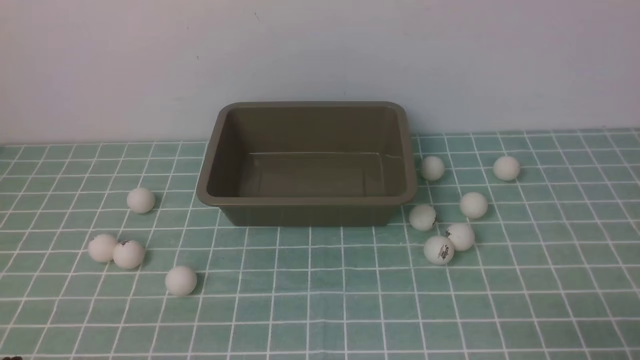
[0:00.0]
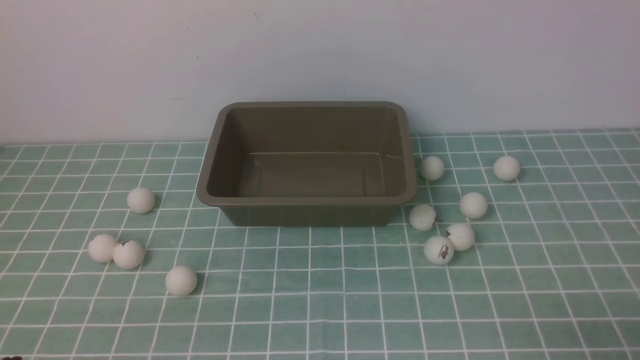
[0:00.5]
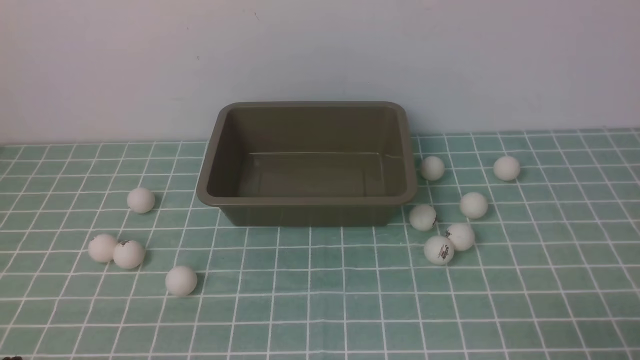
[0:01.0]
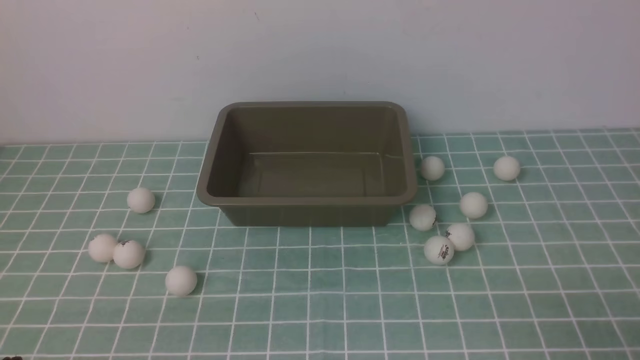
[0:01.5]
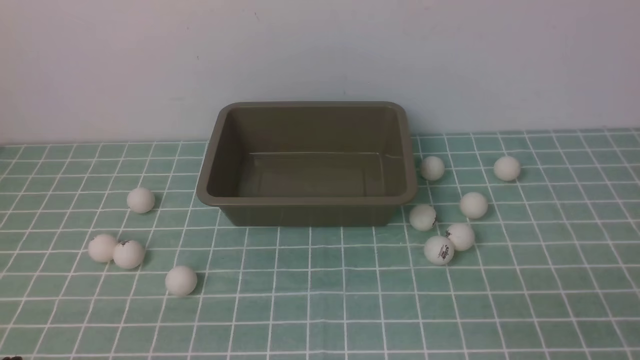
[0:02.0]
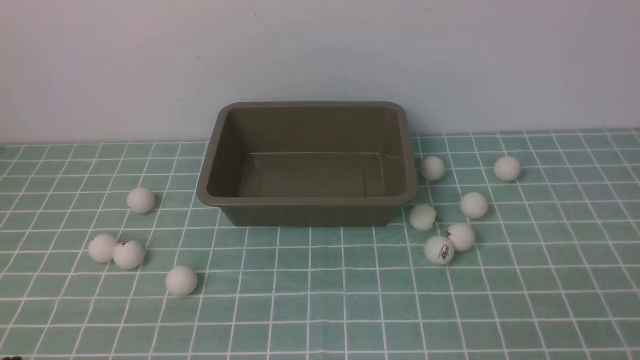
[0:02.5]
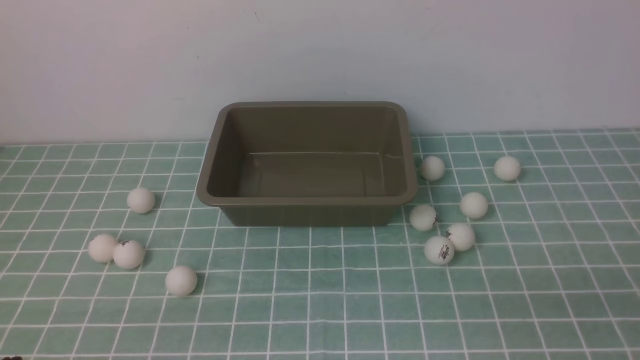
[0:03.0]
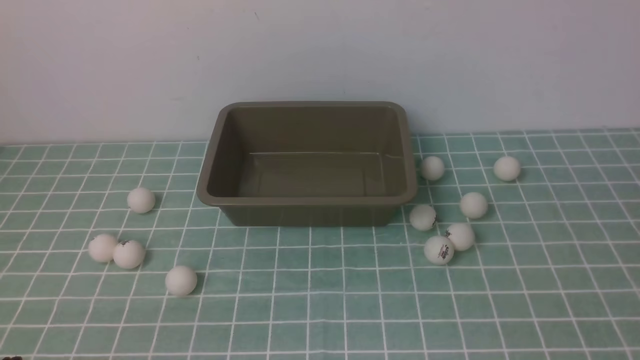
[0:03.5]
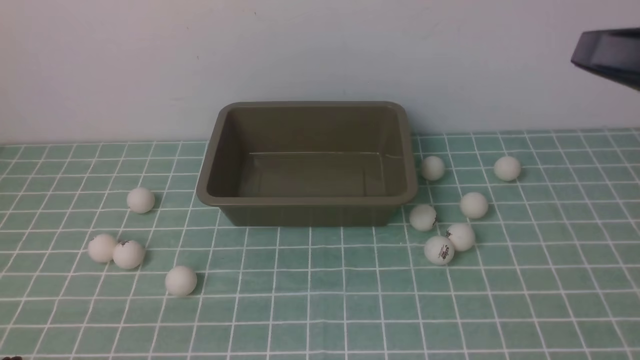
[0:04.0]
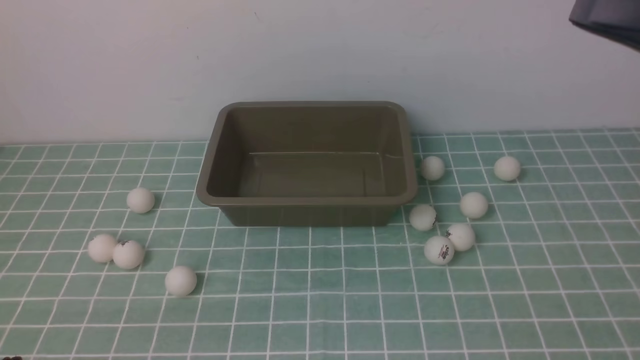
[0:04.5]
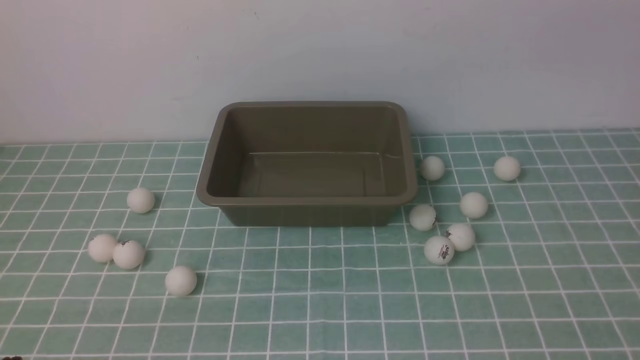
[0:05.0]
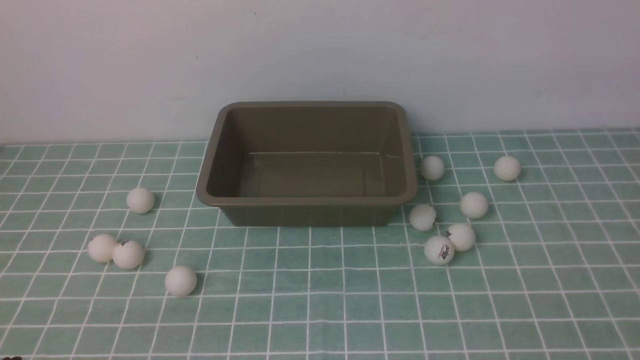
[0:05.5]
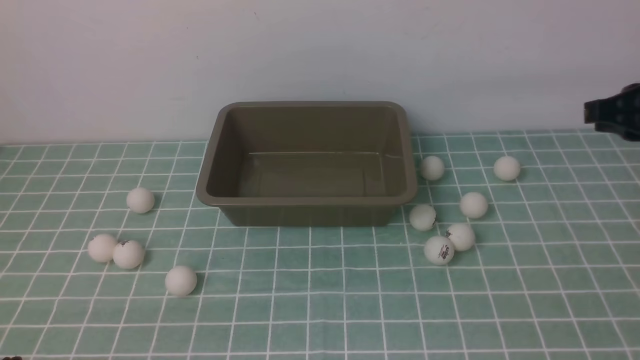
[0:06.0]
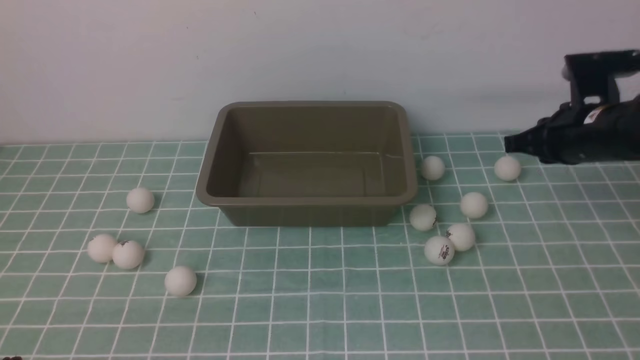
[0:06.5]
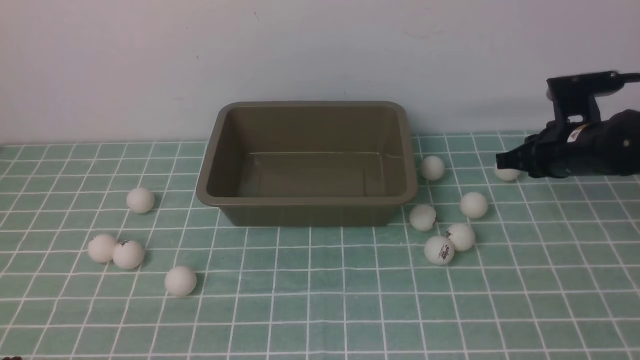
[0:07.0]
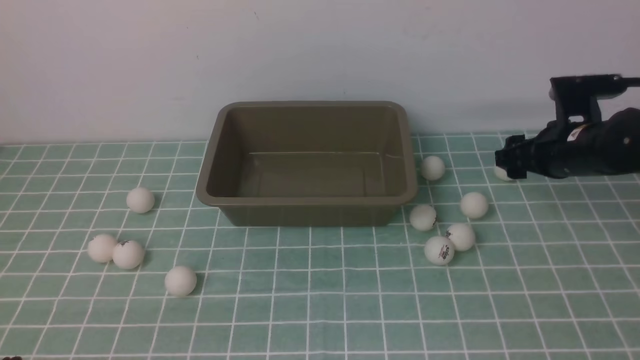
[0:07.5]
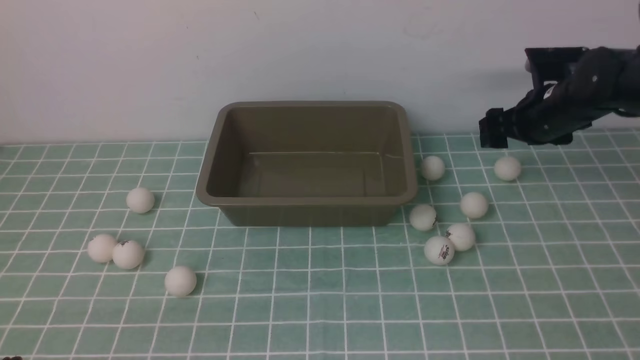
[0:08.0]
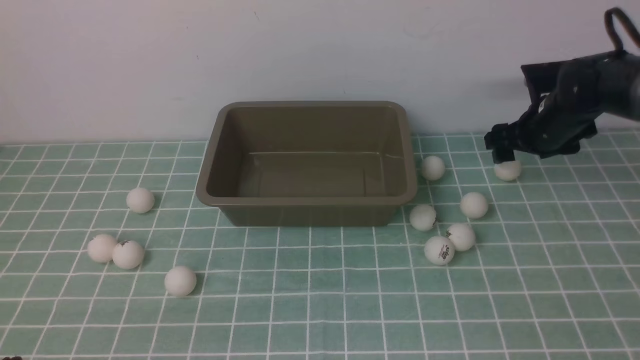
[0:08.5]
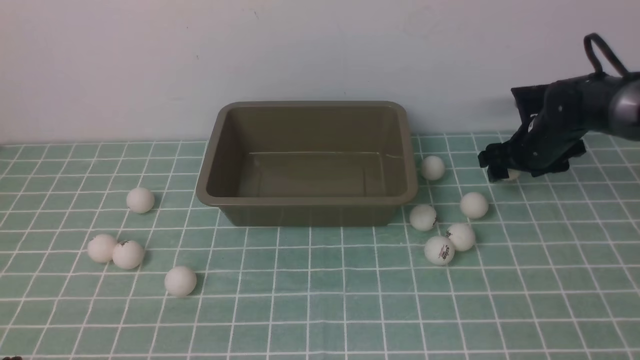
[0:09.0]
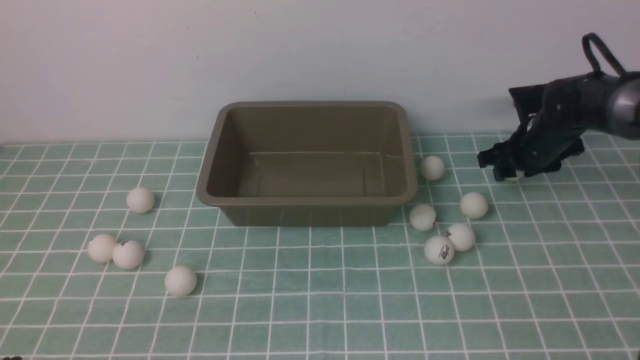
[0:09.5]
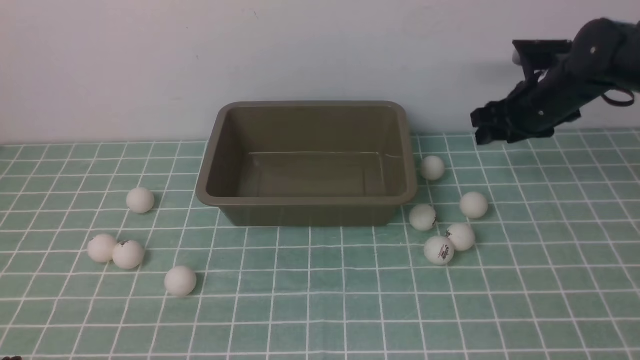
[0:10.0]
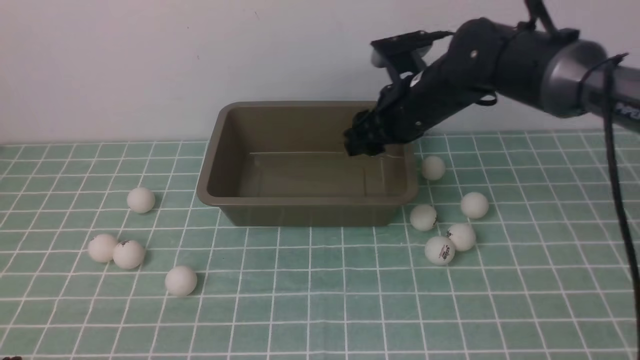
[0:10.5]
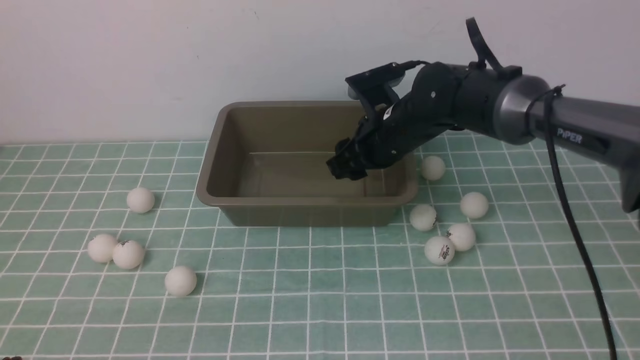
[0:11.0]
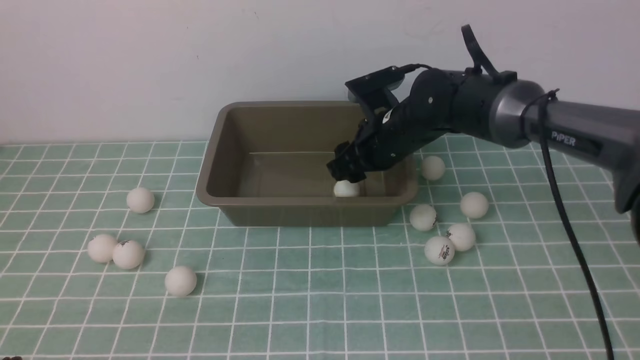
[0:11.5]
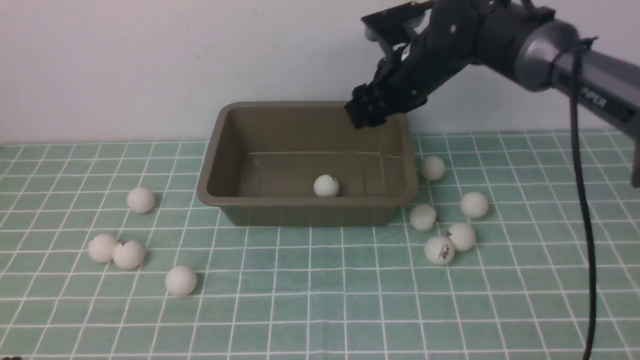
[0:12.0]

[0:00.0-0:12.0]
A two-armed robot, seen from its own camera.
Step, 0:00.0 to 0:09.5: use the right arm to clamp the table tennis ball closest to it.
Step, 0:10.0 to 0:11.5: use the right arm to put the table tennis ball into the box.
0:02.0 to 0:04.0: The right gripper shifts some 25 cm upward and forward.
0:04.0 to 0:06.0: The right gripper shifts about 10 cm forward and downward.
0:06.0 to 0:08.0: The right gripper travels forward and downward by approximately 20 cm, and opens its fingers.
0:08.0 to 0:10.0: The right gripper moves some 5 cm.
0:10.0 to 0:12.0: The right gripper travels to the left and back again, roughly 15 cm each way.

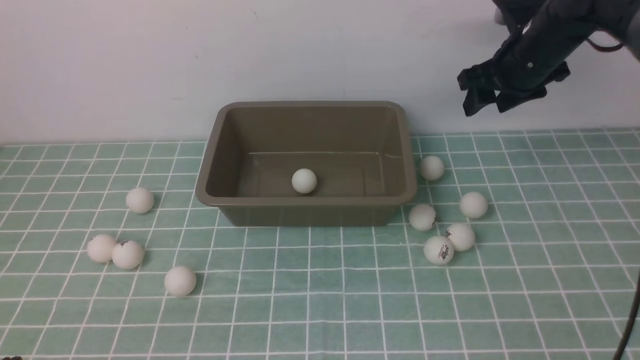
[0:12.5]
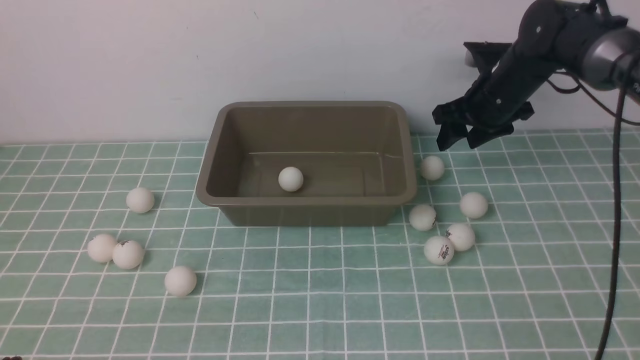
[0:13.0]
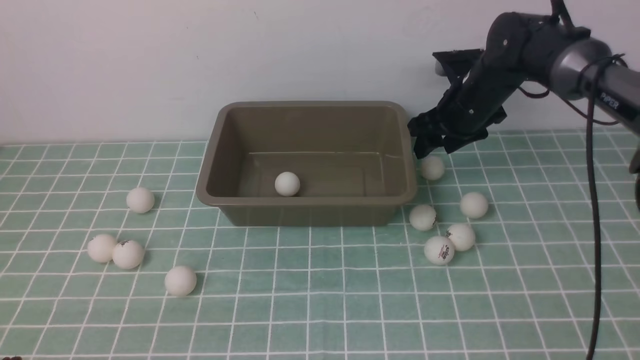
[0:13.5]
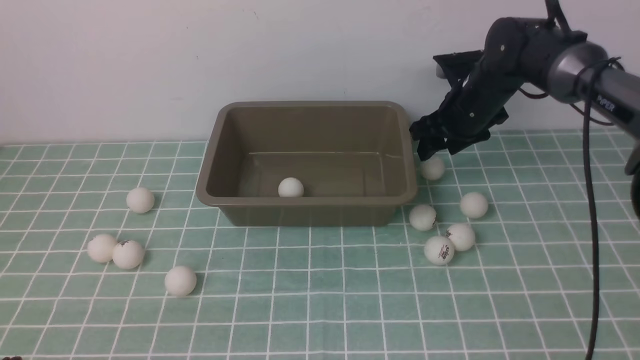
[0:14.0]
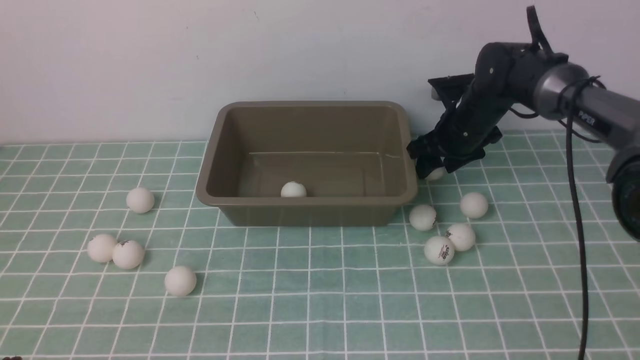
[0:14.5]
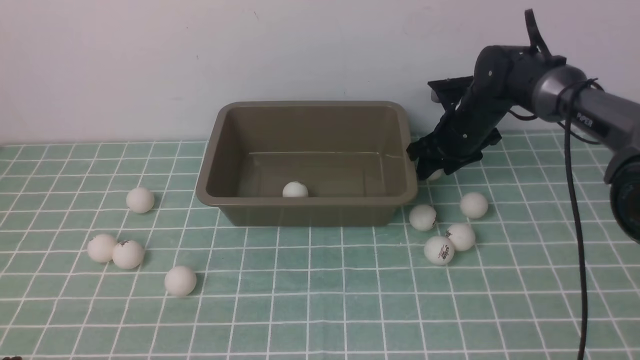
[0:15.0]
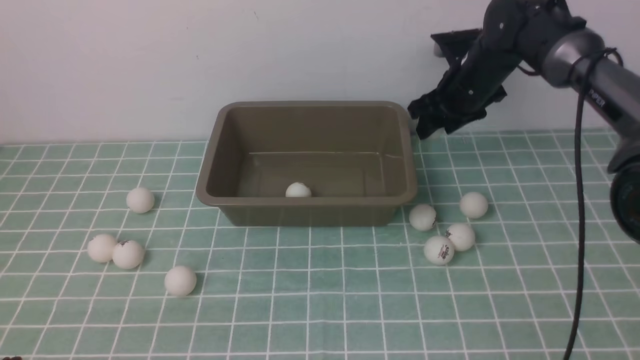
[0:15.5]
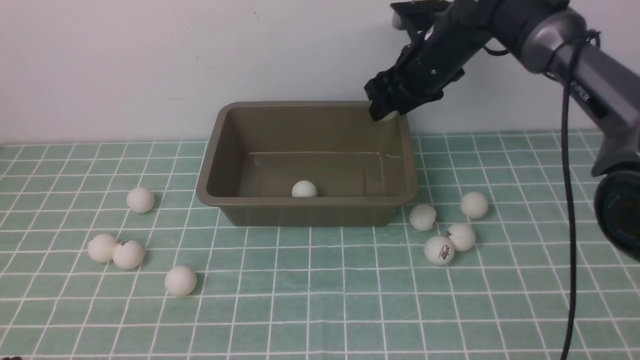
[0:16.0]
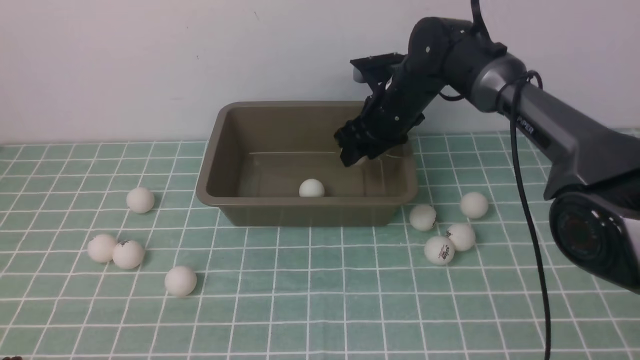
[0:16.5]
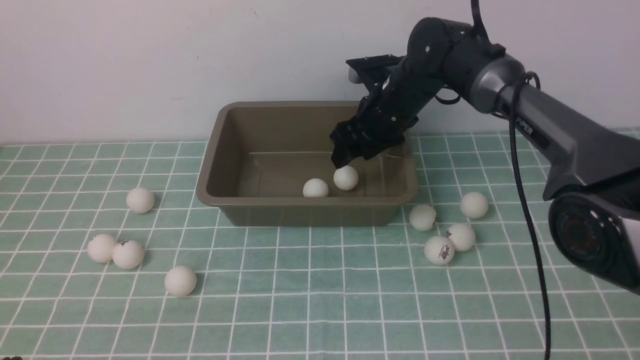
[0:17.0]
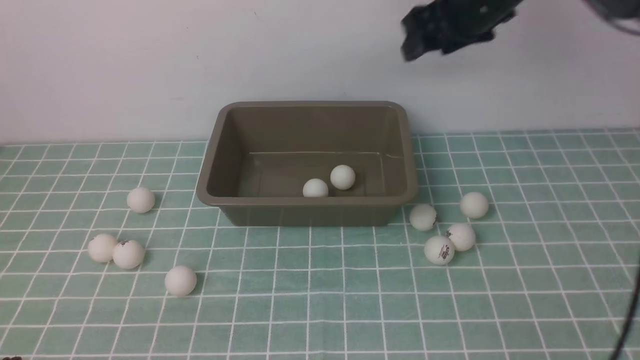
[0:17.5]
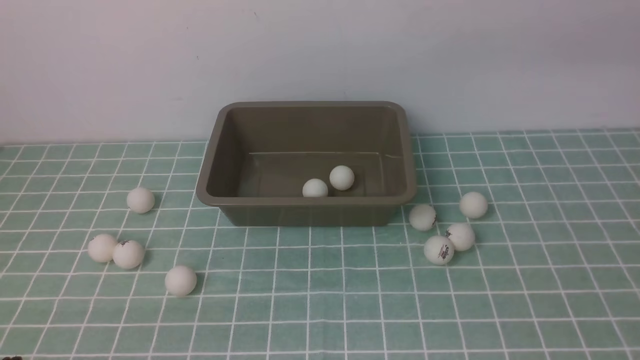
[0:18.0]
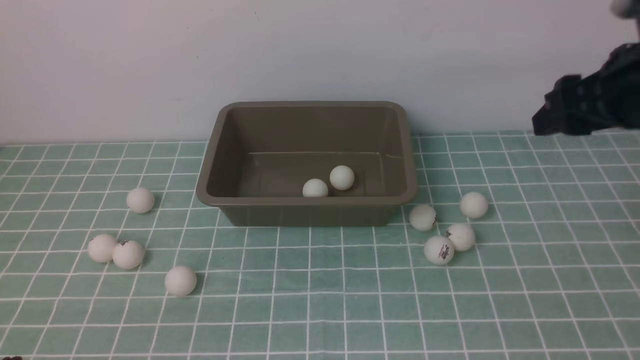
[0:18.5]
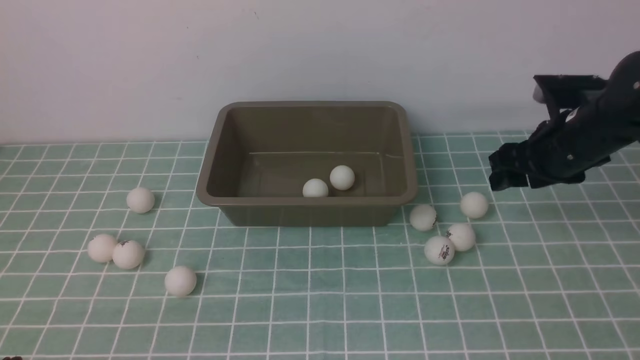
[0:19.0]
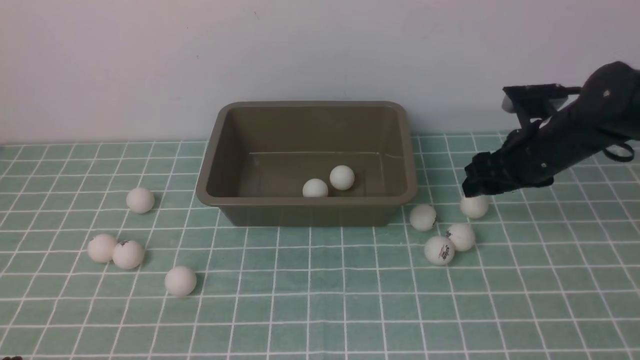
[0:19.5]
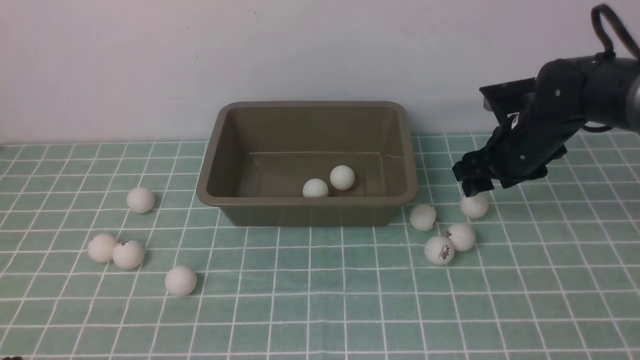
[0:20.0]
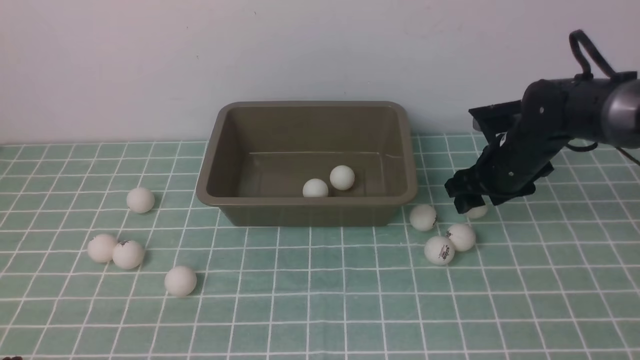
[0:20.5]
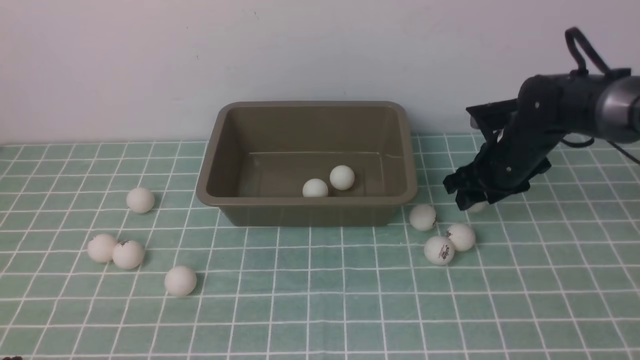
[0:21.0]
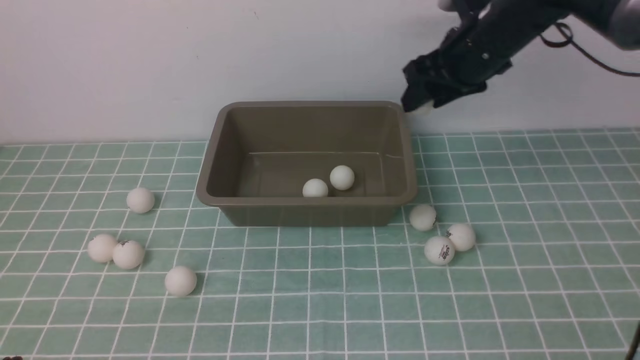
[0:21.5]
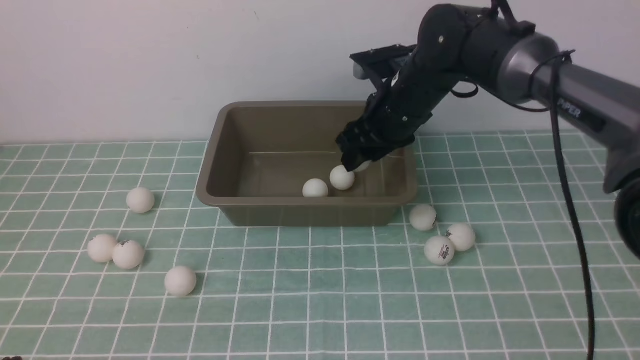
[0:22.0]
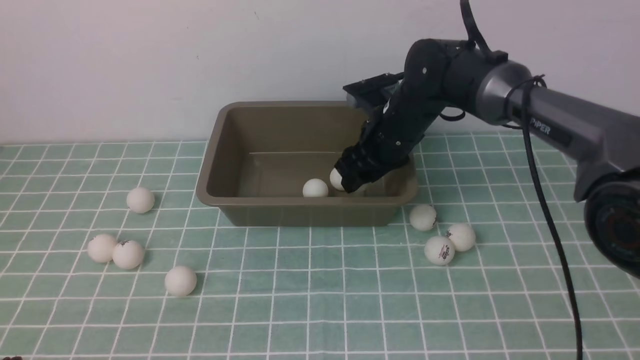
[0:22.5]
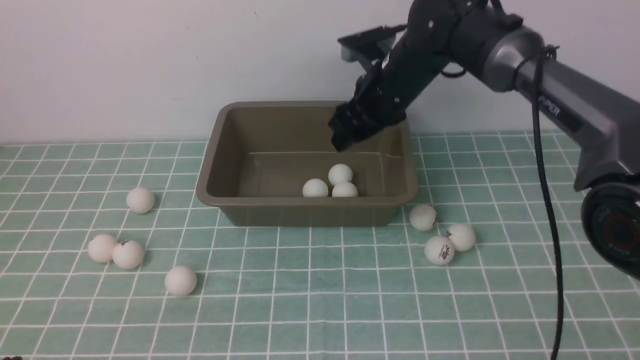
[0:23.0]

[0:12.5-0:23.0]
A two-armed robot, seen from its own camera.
Step, 0:12.5 to 0:15.0: use the right arm to clamp the table tennis ball closest to it.
Step, 0:15.5 to 0:17.0: use the right arm to put the table tennis ball into the box.
Step, 0:17.5 to 0:21.0: use the right arm to clamp the table tennis ball closest to it.
Step, 0:21.5 to 0:23.0: use the right arm to put the table tennis ball into the box.
0:12.5 to 0:14.5: The right gripper goes some 5 cm downward.
0:14.5 to 0:16.5: The right gripper is displaced to the left and upward by about 10 cm.
0:16.5 to 0:19.0: The right gripper is displaced to the right and backward by roughly 20 cm, and reaches roughly 25 cm upward, then returns.
0:19.0 to 0:21.0: The right gripper moves downward and forward, roughly 10 cm.
0:21.0 to 0:23.0: The right gripper is displaced to the left and upward by about 15 cm.
